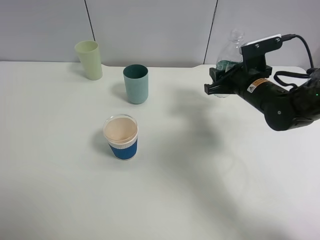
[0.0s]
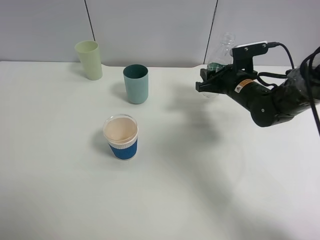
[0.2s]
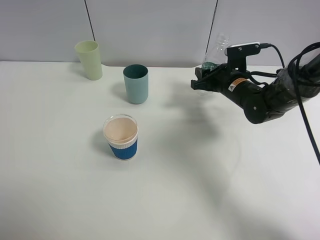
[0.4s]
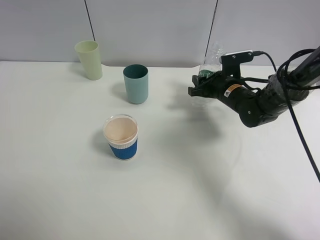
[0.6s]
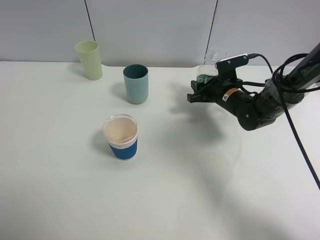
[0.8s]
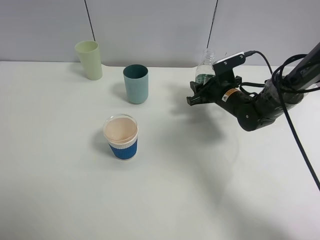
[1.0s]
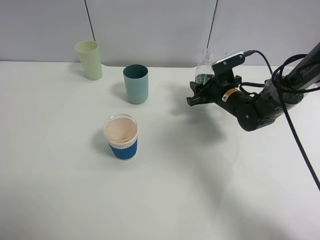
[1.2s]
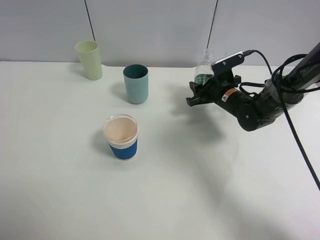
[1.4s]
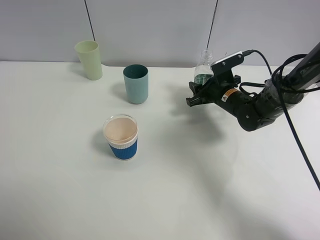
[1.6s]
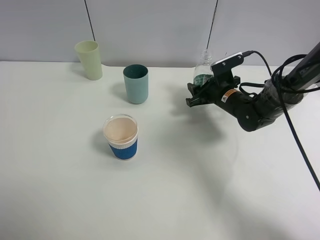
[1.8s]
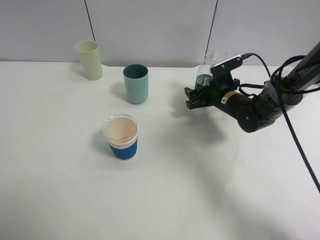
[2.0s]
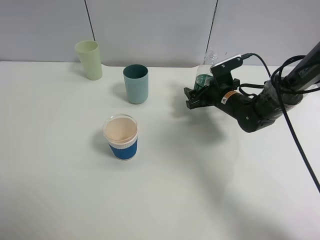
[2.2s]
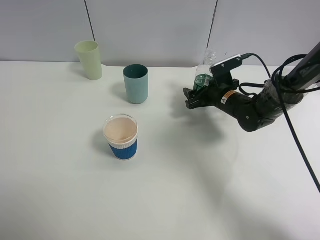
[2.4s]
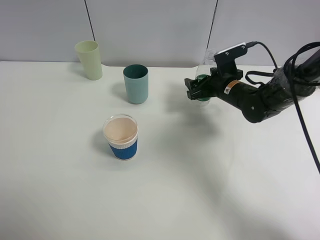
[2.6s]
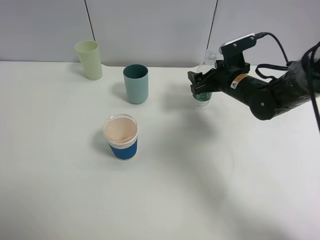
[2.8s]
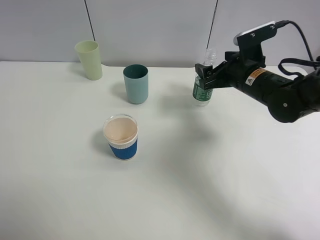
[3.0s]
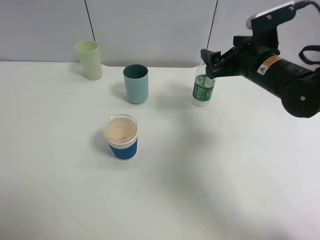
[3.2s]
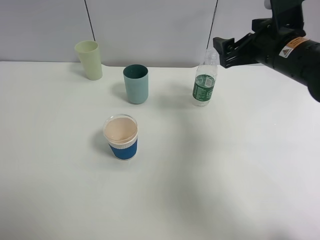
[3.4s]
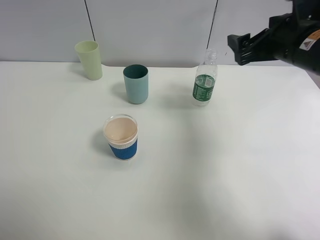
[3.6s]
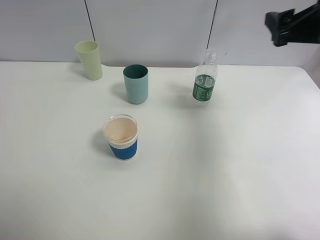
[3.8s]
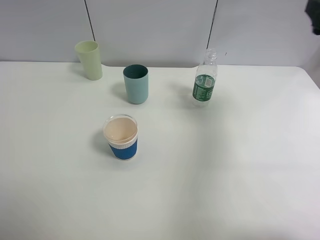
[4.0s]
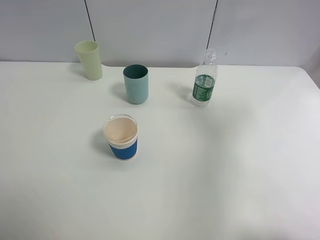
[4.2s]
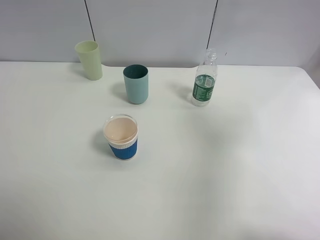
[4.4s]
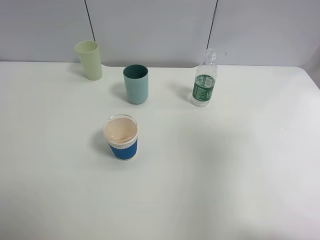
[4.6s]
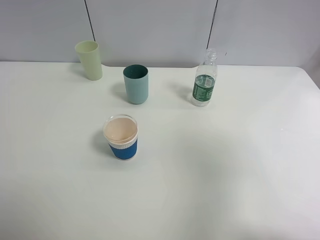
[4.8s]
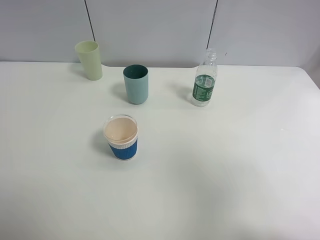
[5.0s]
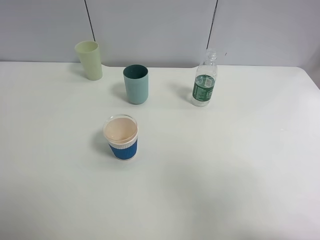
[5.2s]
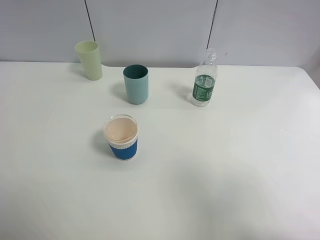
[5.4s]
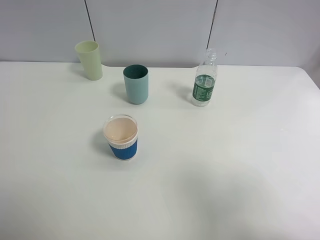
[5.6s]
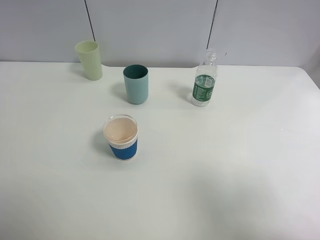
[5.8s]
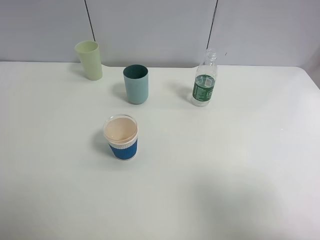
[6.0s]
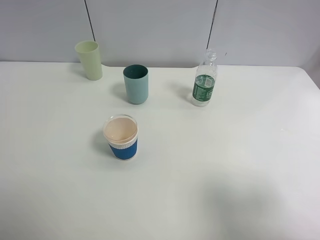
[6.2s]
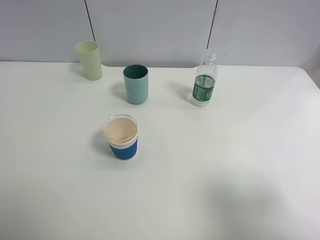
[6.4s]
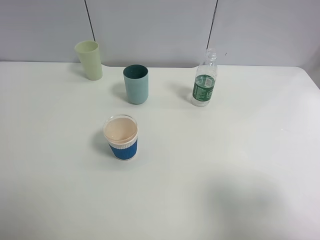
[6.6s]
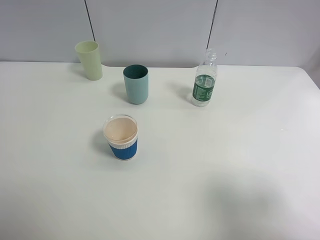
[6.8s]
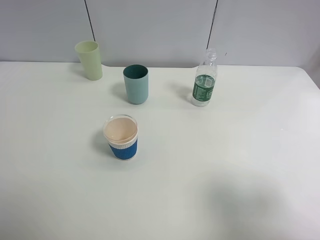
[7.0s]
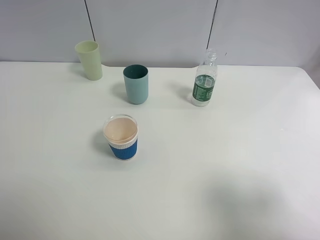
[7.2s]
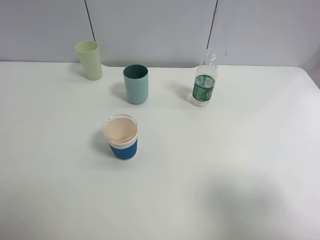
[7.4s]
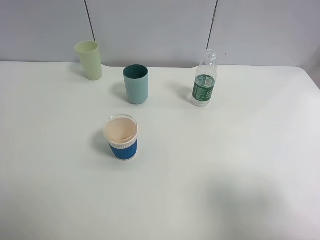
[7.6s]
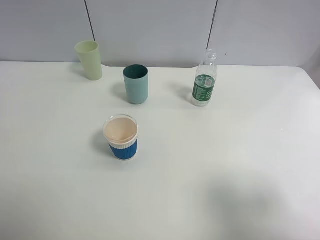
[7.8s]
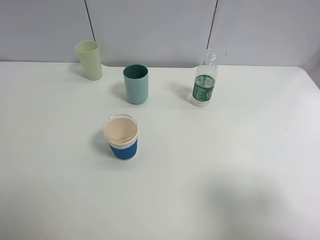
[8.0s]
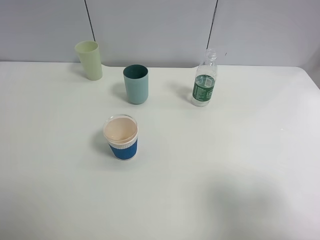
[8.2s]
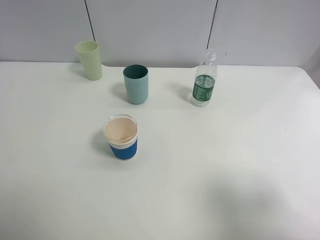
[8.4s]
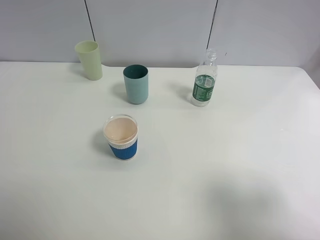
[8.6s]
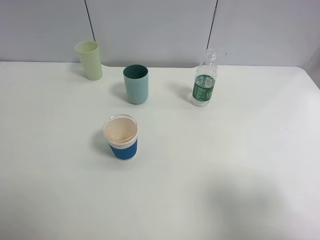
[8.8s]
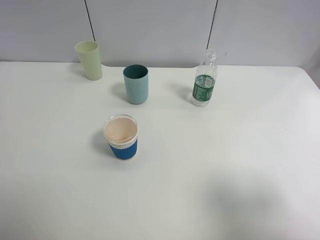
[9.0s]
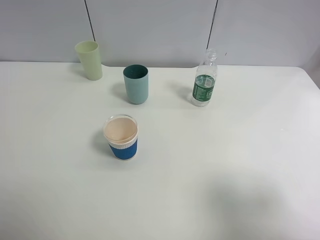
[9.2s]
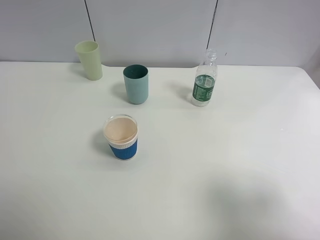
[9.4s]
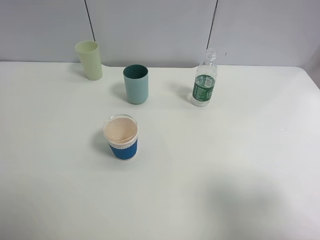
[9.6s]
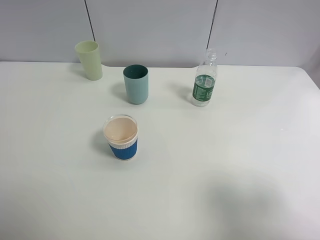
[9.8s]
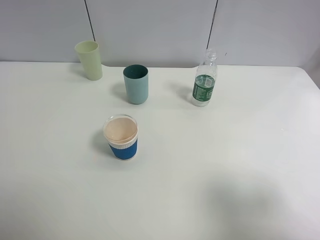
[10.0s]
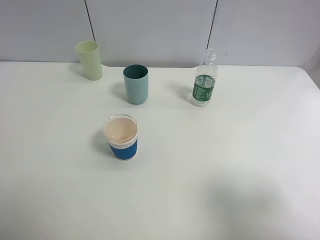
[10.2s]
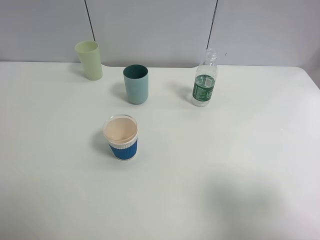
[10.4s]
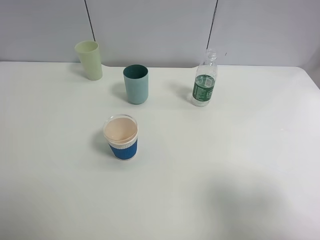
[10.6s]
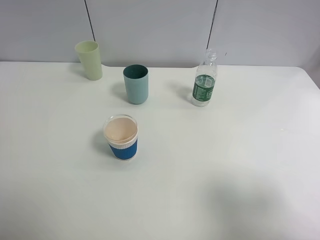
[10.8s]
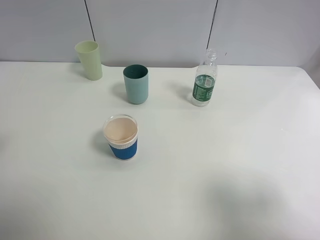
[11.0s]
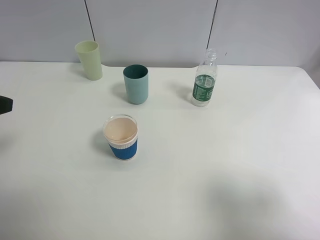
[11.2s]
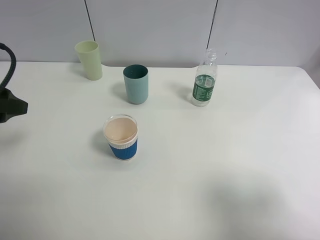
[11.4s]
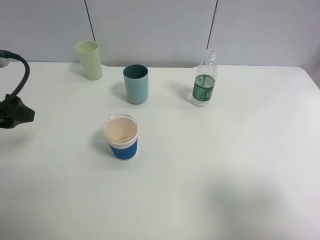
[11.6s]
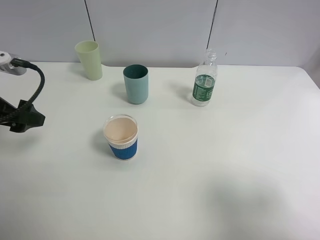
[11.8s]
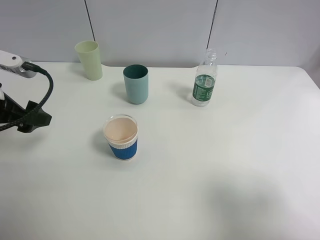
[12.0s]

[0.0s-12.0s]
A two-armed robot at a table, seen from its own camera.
Task of the whole recording: use a clamp to hold the bottle of the drink, pour the beverage into a random cup, then clamp the cup containing the drink and pour the drink into another random cup.
Step, 0.0s to 2.0s: Place the water bottle on the table with right gripper.
0.0s to 1.6s: The right gripper heads downward, covering some 5 cm.
1.6s to 3.0s: The right gripper moves upward and backward, some 10 cm, and opens its fingers.
3.0s to 4.4s: The right gripper goes roughly 30 cm upward, backward and to the right.
4.4s to 6.0s: The right gripper shifts some 15 cm backward.
7.6s to 9.0s: The two grippers keep their place.
10.4s to 12.0s: The left gripper goes some 20 cm forward and downward.

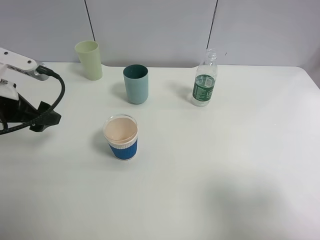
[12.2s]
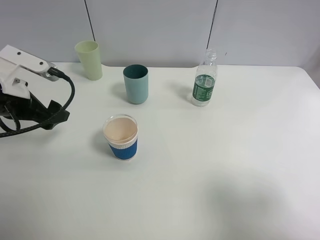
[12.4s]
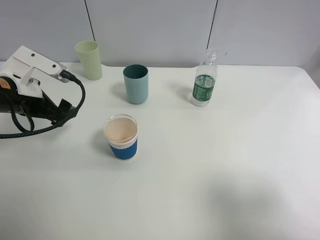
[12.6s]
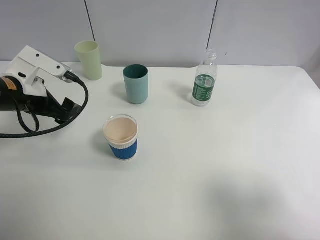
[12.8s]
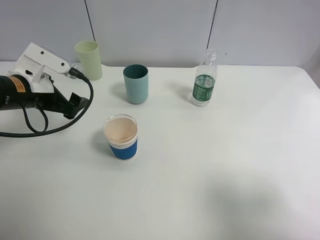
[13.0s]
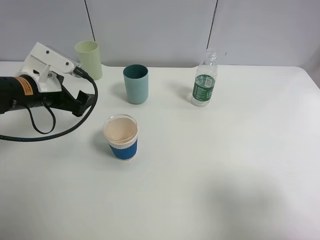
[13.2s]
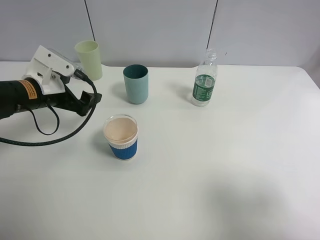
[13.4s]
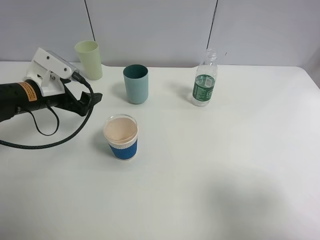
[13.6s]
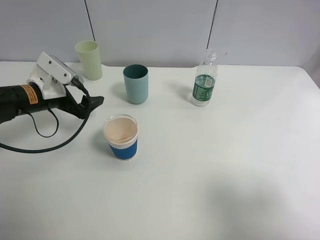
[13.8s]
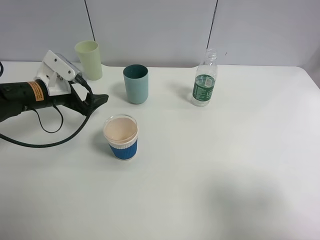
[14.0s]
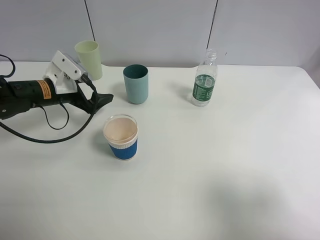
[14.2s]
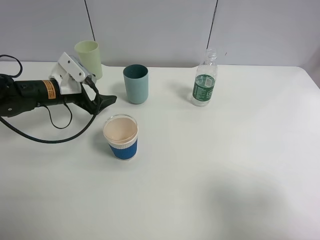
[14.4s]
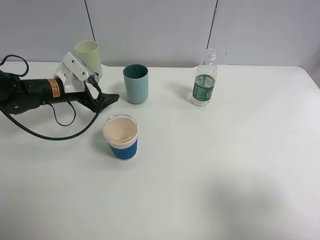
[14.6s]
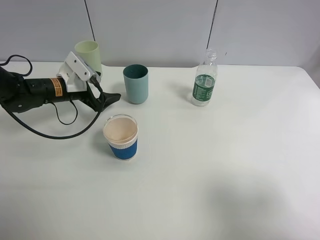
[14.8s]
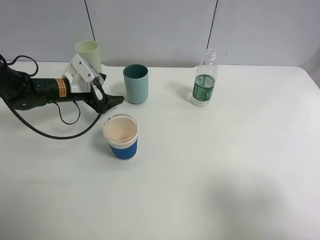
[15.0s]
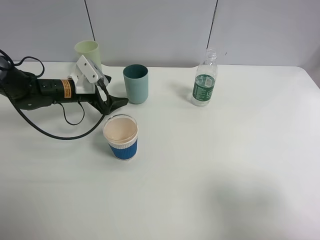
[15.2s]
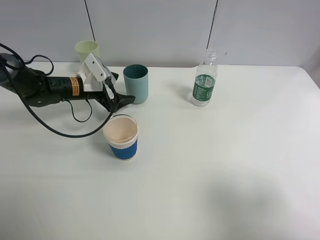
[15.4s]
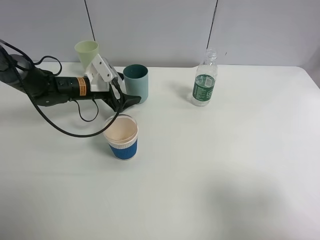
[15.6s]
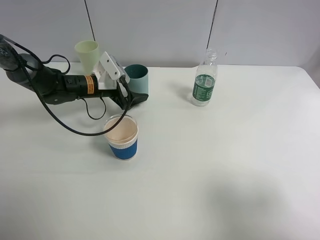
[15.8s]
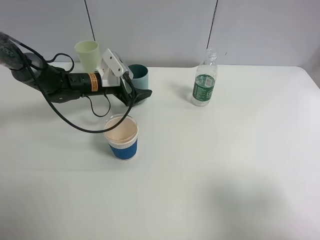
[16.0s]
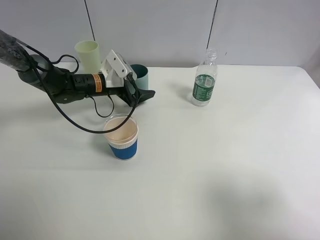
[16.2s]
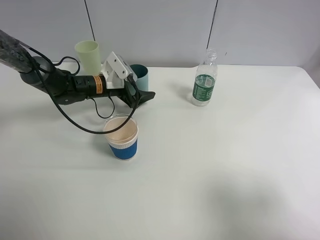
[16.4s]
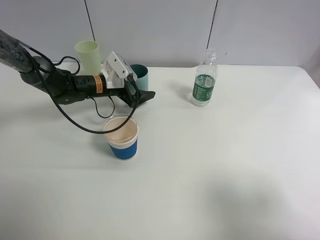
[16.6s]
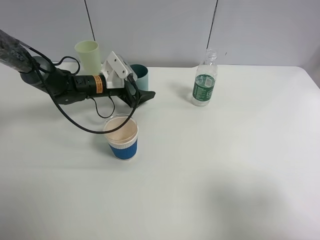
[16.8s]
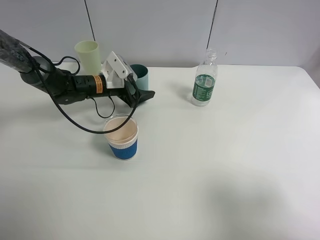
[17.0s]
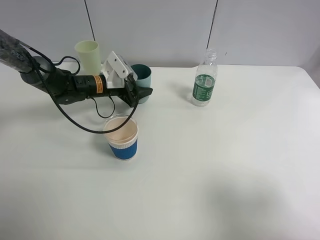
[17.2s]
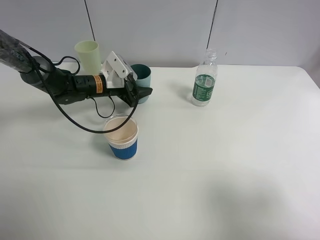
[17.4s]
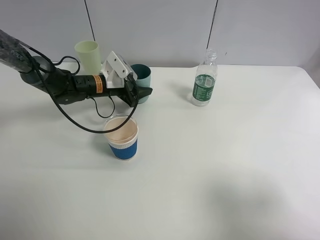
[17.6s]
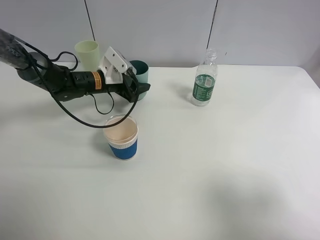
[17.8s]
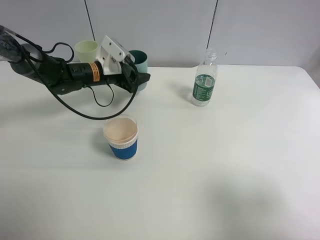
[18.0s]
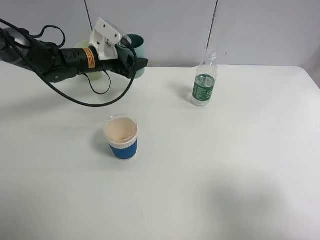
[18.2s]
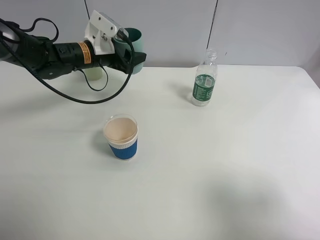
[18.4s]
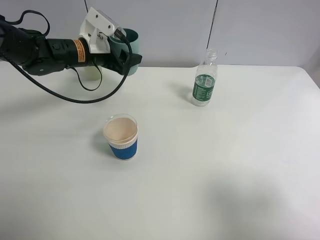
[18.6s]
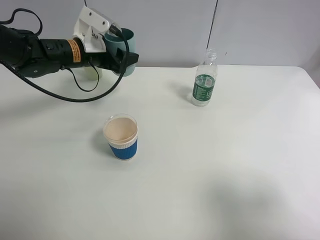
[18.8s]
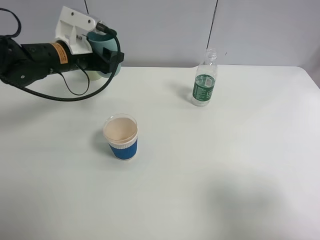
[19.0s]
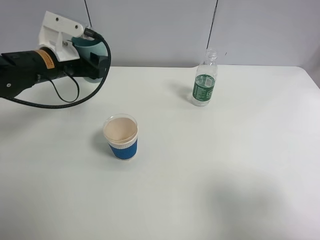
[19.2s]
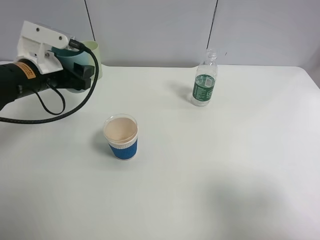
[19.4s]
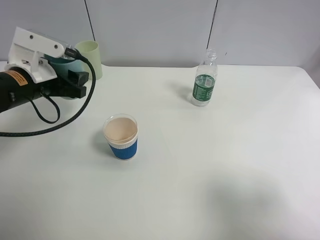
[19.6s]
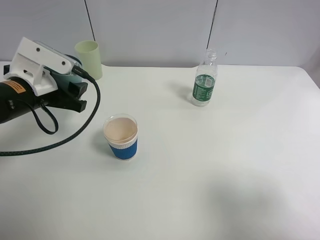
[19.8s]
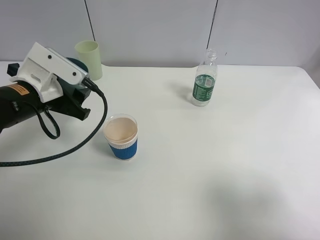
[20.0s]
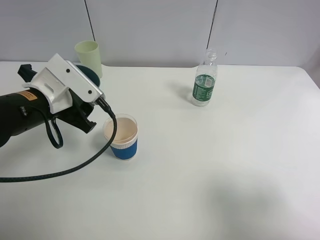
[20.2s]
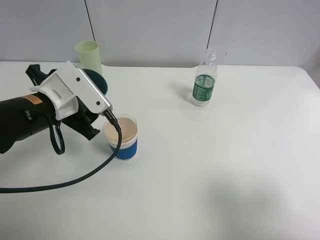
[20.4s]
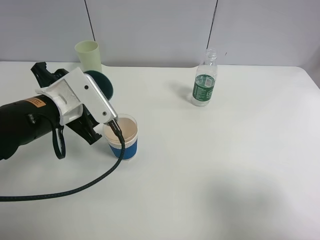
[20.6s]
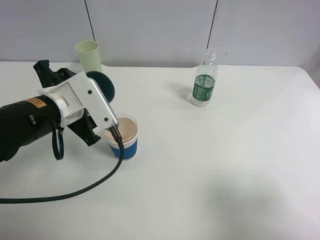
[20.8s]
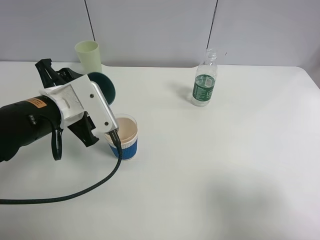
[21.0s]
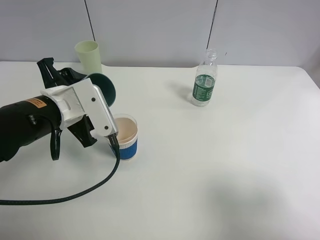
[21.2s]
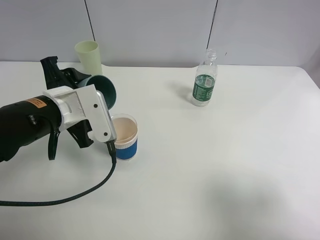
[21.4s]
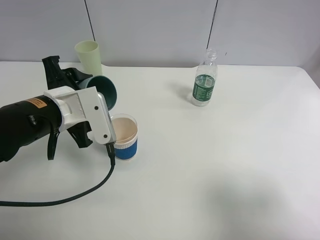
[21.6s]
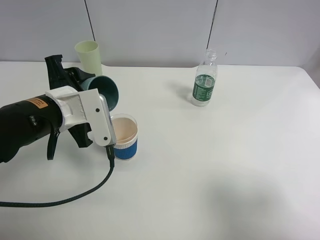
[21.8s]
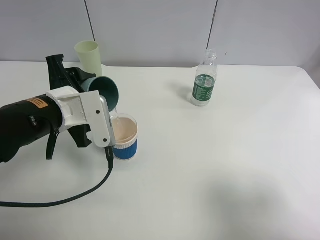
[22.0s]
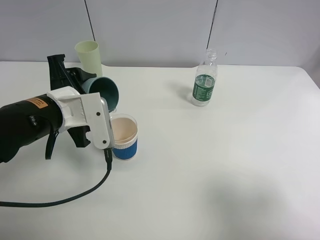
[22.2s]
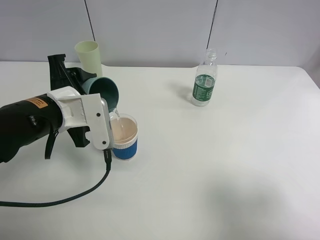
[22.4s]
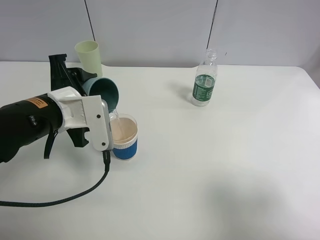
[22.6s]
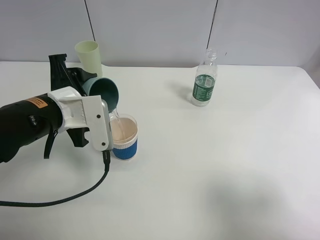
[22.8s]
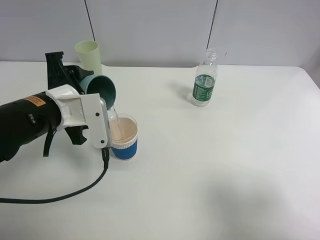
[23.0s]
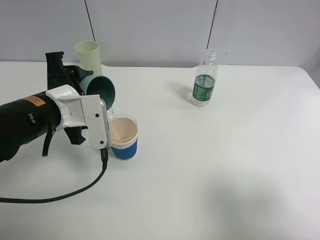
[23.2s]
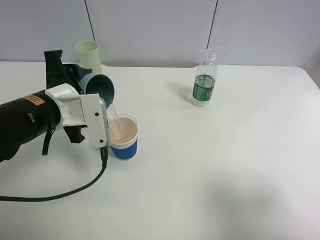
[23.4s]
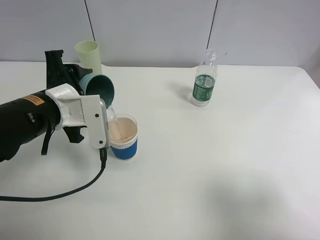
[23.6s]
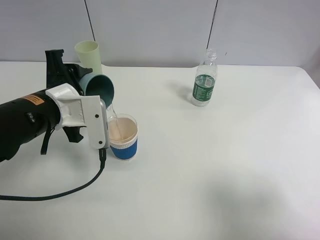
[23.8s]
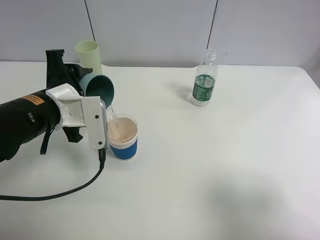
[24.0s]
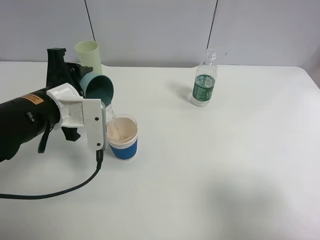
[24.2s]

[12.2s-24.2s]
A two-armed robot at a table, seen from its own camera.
Task of the whole recording: use a clamp to hold the bottle of the drink, pour the beverage into a random cup, then clamp the cup containing the drink and pour the drink into another random cup.
Step, 12.2s to 17.8s: Pick up the blue plastic cup bottle with left gripper.
12.2s to 13.8s: The left gripper heads forward and downward, covering about 10 cm.
13.8s to 15.2s: The left gripper travels forward by about 5 cm.
15.2s to 16.6s: The left gripper travels to the right by some 5 cm.
16.6s to 18.2s: The left gripper goes roughly 10 cm upward, and closes up.
18.2s to 19.8s: The left gripper goes some 15 cm backward.
19.8s to 21.2s: The left gripper shifts some 5 cm to the right.
21.2s to 22.6s: There are only small adjustments of the grippers.
22.6s to 24.2s: The grippers move only a little.
